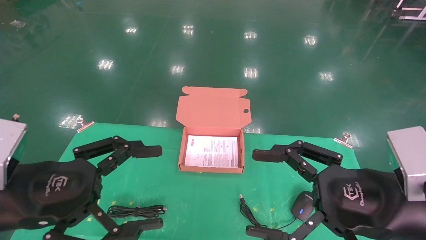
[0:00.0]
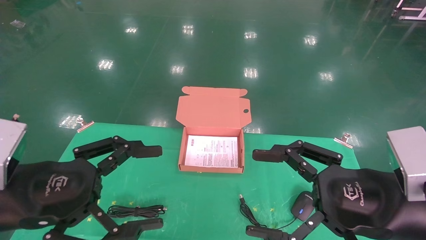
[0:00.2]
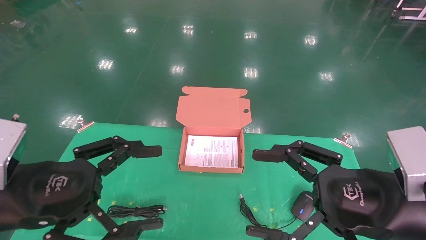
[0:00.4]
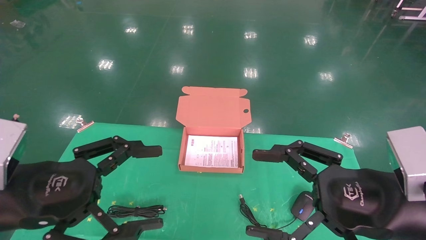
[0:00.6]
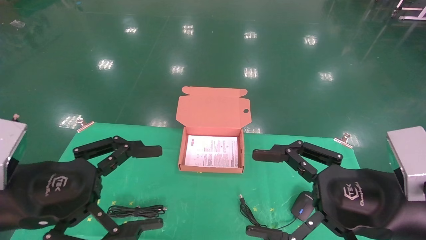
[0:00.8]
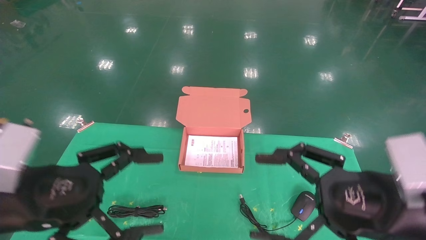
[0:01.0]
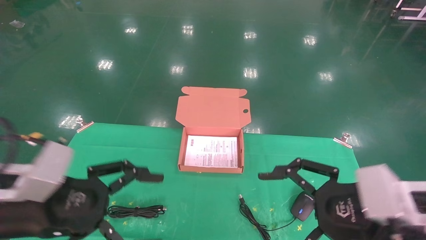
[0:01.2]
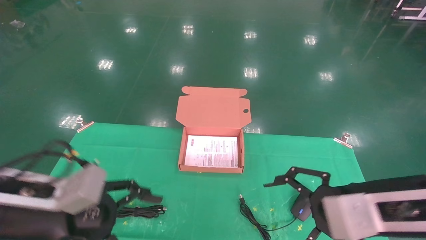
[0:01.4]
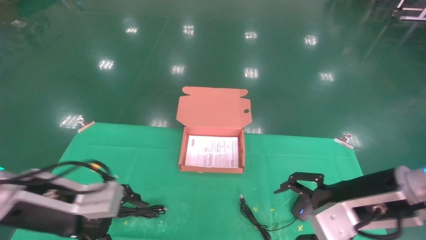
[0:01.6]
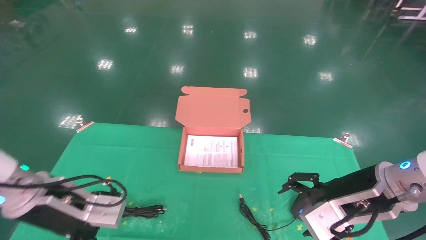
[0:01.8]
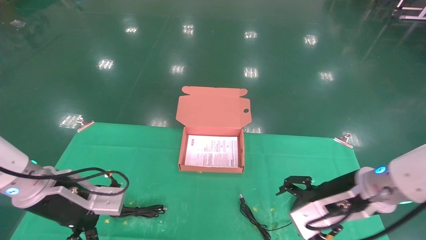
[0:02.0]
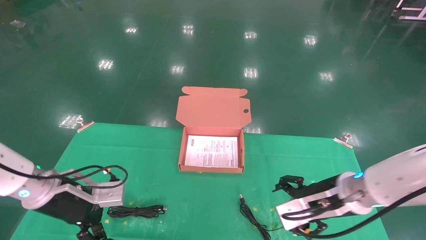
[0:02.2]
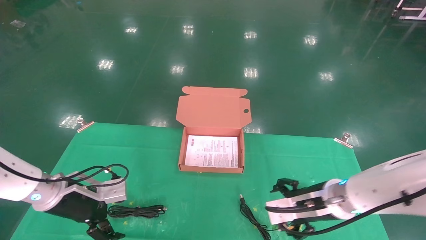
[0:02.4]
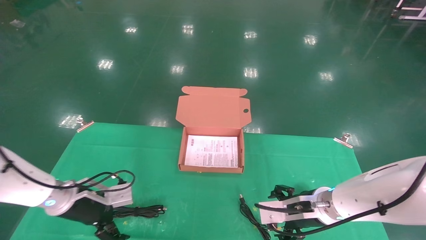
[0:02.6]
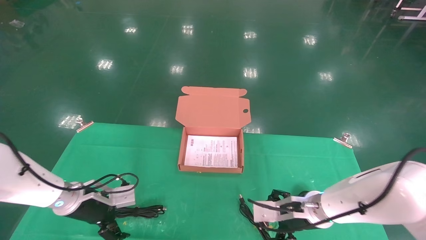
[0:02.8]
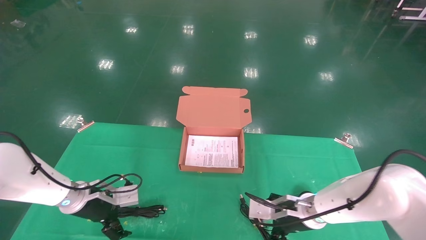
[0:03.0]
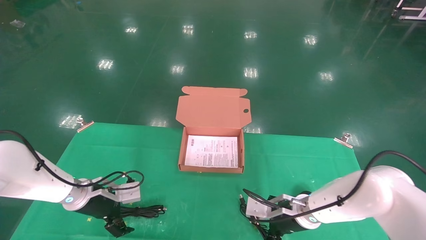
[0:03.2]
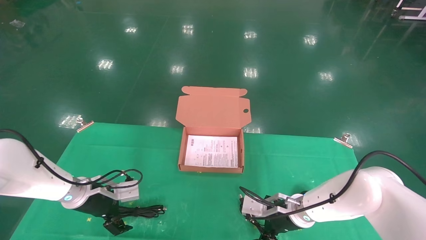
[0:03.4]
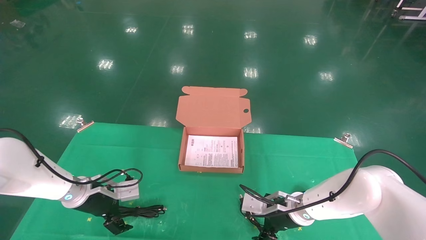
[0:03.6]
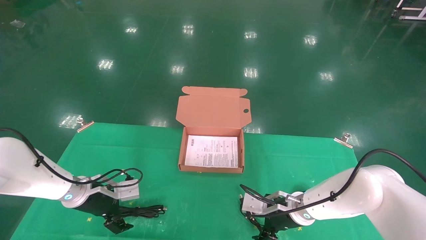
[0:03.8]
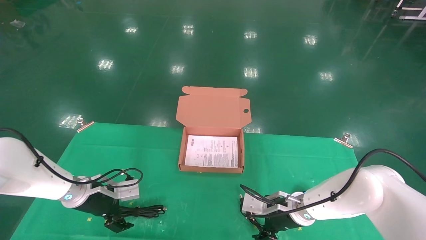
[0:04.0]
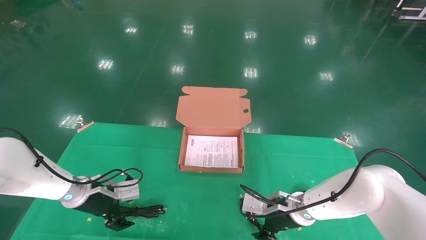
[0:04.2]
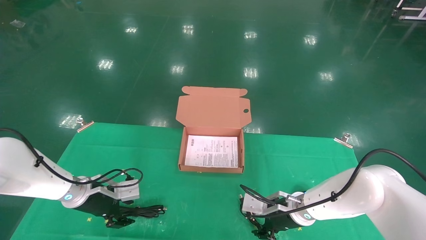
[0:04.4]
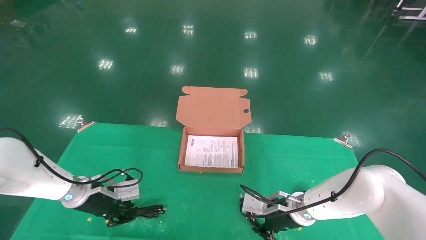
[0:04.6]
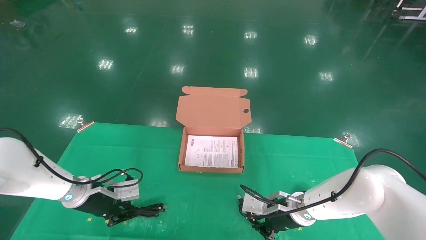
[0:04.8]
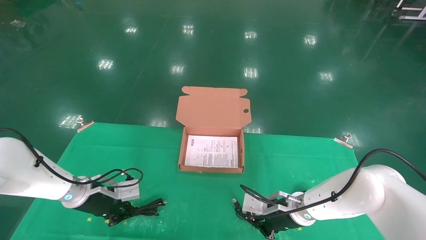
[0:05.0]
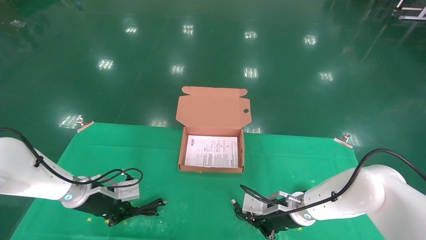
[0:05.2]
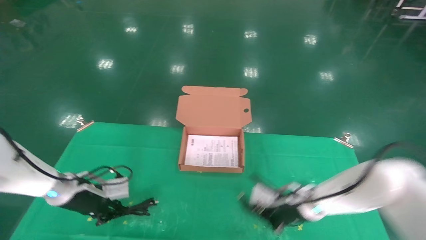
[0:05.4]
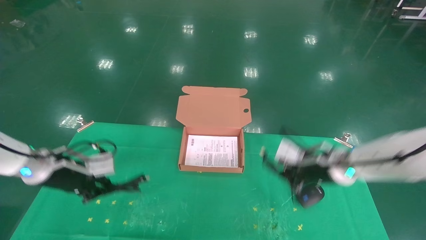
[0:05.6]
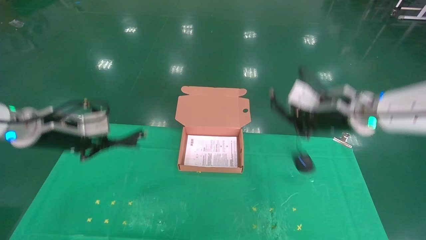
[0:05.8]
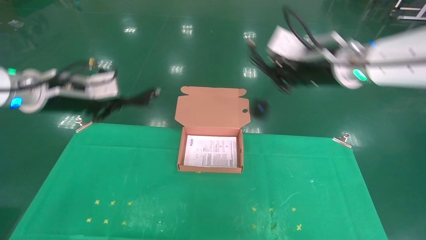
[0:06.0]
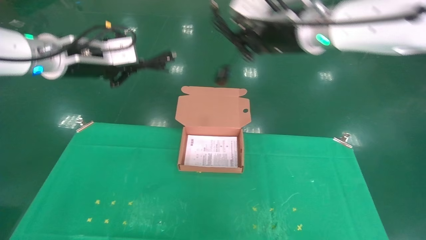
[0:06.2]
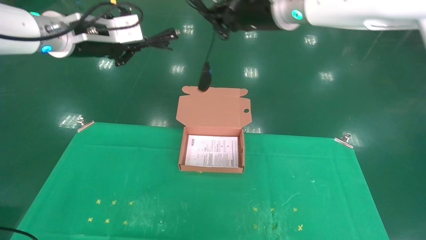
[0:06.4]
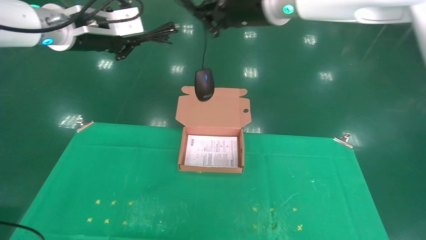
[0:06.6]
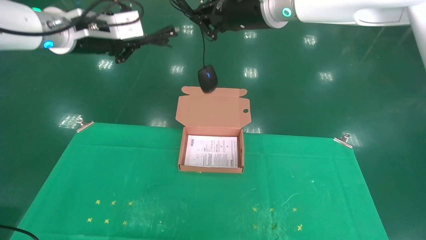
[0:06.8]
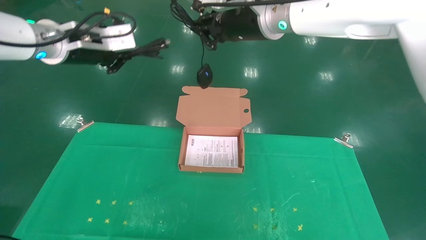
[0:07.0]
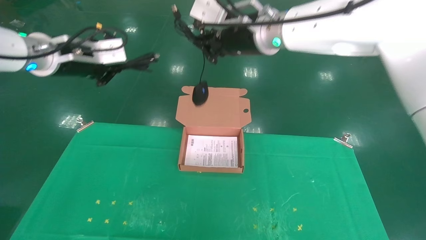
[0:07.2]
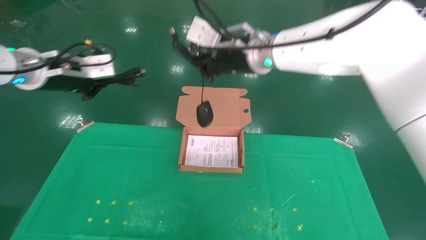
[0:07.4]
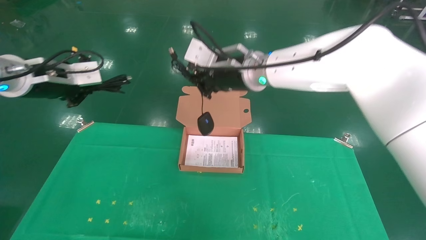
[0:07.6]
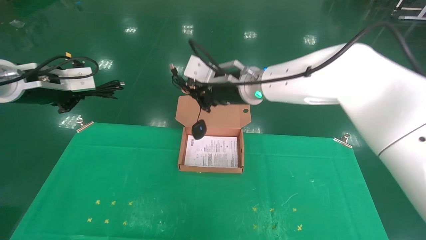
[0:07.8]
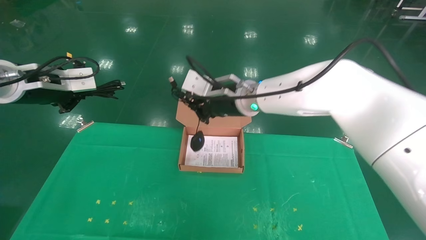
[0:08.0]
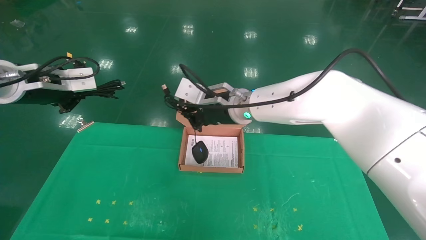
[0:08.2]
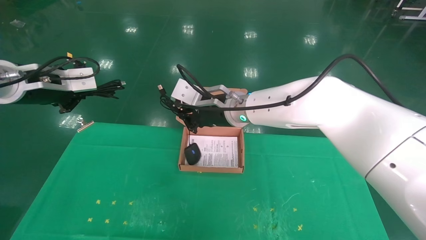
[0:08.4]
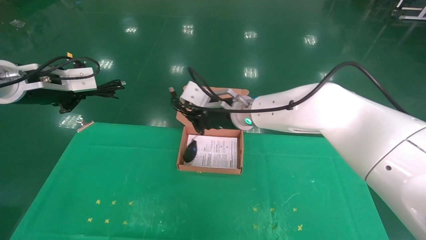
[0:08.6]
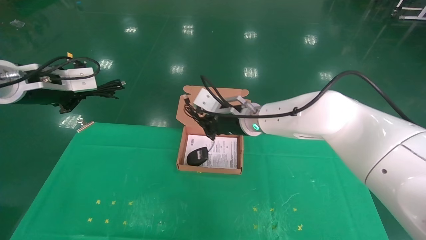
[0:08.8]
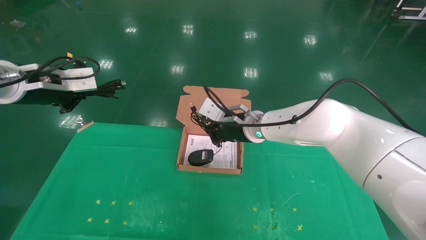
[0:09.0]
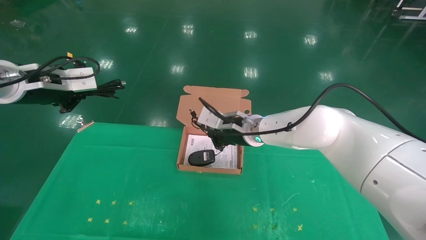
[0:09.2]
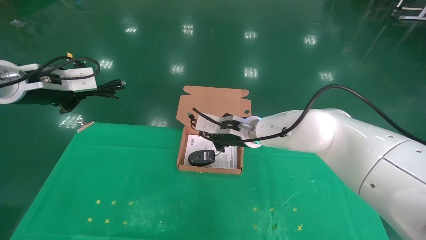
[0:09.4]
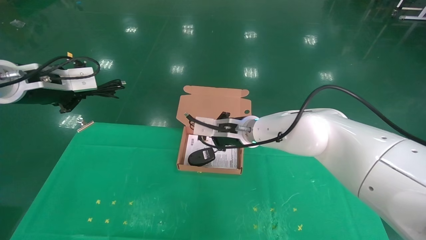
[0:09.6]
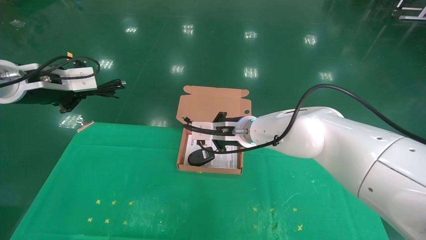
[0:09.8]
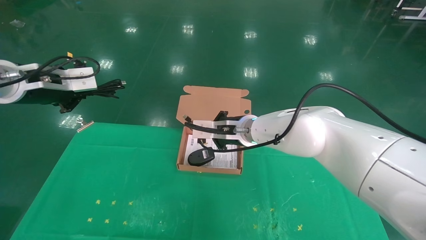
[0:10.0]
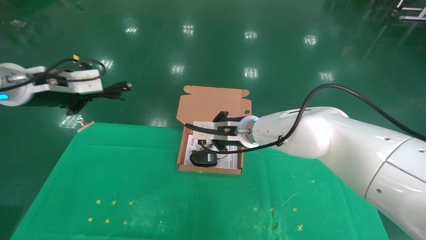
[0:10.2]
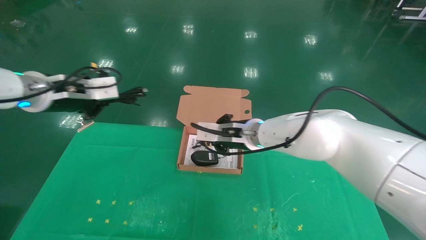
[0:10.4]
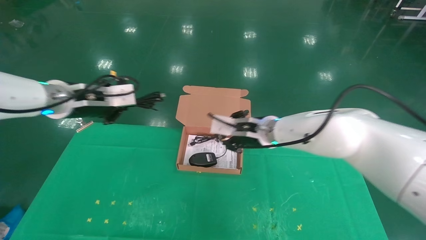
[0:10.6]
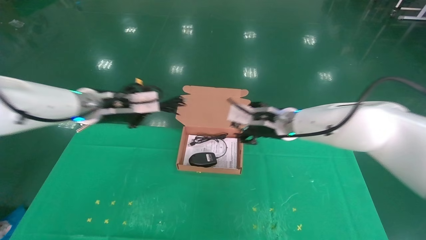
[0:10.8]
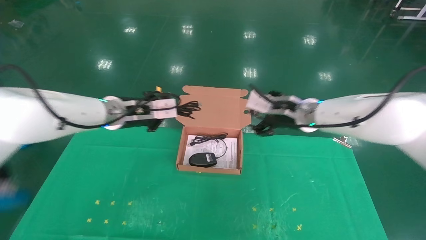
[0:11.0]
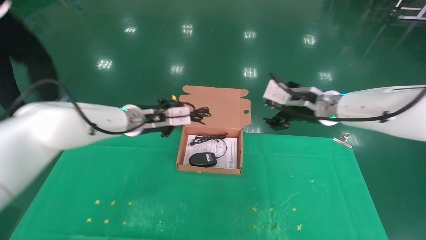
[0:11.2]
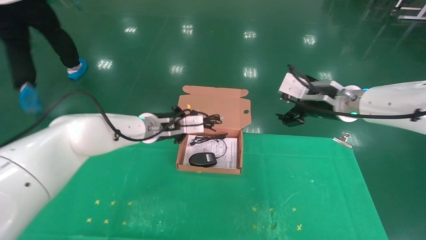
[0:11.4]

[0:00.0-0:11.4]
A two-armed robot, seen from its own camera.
Task of the whole recording: grasp data cable left put into box grasp mouse right put into box.
Step, 0:01.0 to 0:06.0: Grab and pick up both the mouse and power cord from the accessory packaging area at the same time.
0:00.0 to 0:01.4: The left gripper moves roughly 5 cm.
0:01.4 to 0:02.8: The right gripper goes approximately 20 cm forward, downward and to the left, while the left gripper is displaced forward and downward by about 20 cm.
0:02.8 to 0:04.2: The right gripper changes place by approximately 5 cm.
0:04.2 to 0:05.6: The right gripper shifts approximately 15 cm upward and to the right, and closes its fingers; the left gripper travels upward by some 10 cm, and closes up.
0:05.6 to 0:07.2: The left gripper moves upward, roughly 20 cm; the right gripper goes roughly 30 cm upward and to the left.
0:07.2 to 0:08.6: The left gripper moves roughly 5 cm; the right gripper heads downward, covering some 15 cm.
0:08.6 to 0:10.0: The right gripper ends up roughly 5 cm from where it was.
0:10.0 to 0:11.4: The left gripper shifts some 25 cm to the right, downward and forward, while the right gripper goes roughly 20 cm to the right and upward, and opens up.

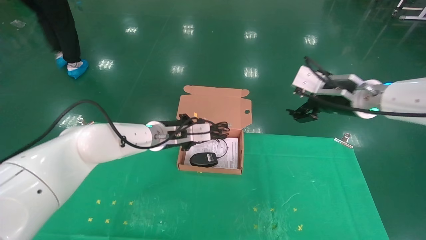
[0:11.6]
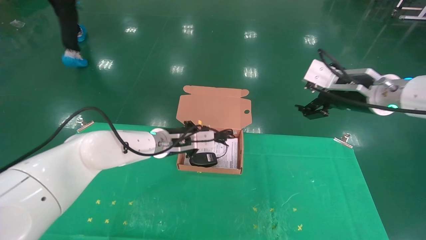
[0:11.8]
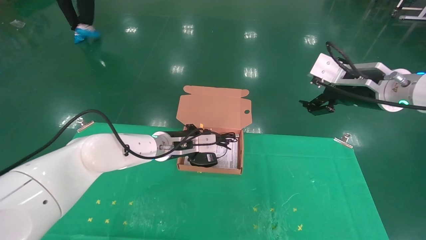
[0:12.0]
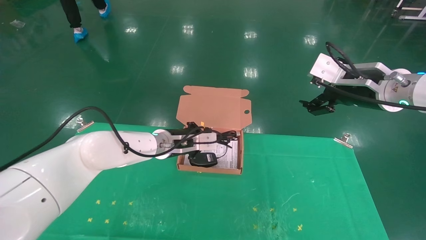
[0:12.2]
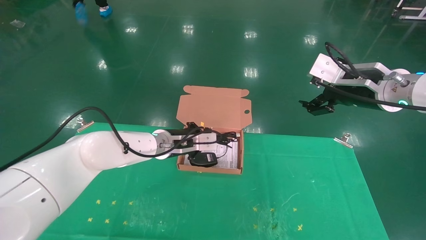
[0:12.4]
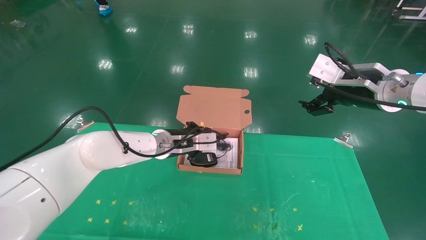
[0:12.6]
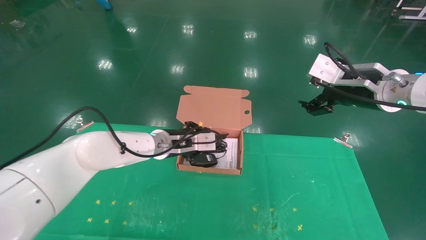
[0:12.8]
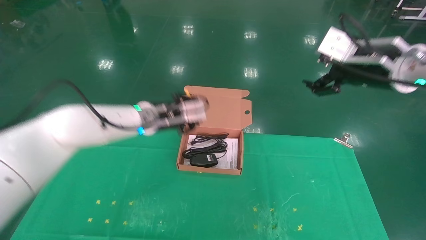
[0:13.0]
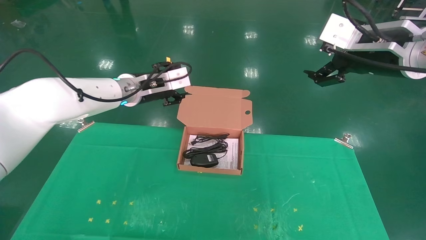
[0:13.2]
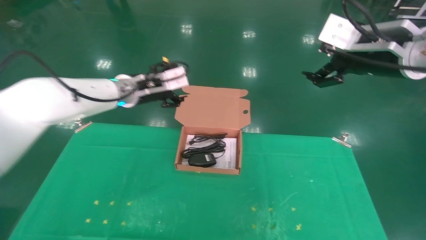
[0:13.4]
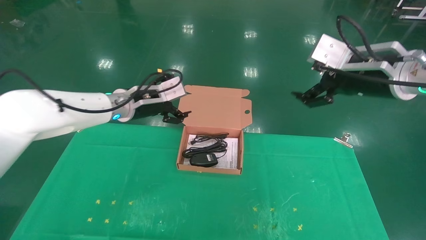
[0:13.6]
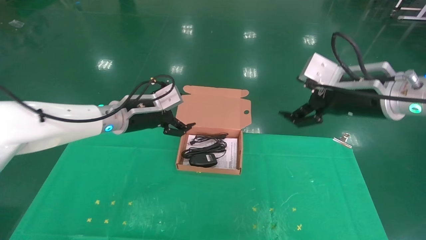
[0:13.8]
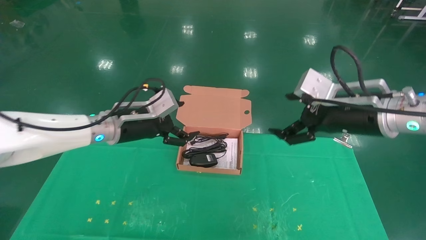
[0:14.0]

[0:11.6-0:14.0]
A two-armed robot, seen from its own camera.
Task of the whole recording: grasp data cable left put into box grasp mouse right put into box.
0:11.6 to 0:12.8: The right gripper changes place by some 5 cm.
0:12.8 to 0:14.0: The left gripper moves to the left and backward, approximately 10 cm, and opens up. Meanwhile the right gripper moves roughly 5 cm.
